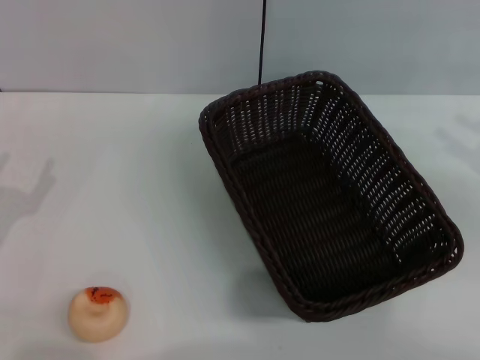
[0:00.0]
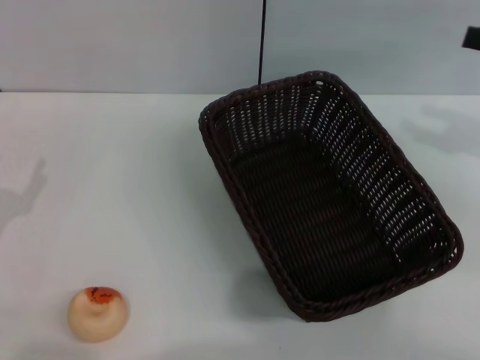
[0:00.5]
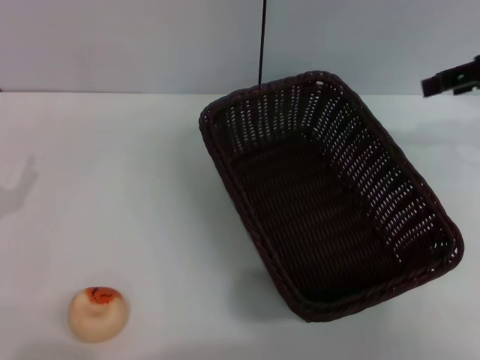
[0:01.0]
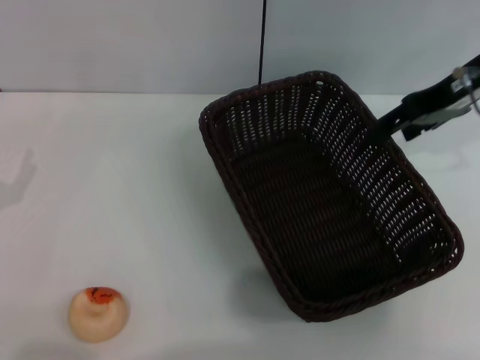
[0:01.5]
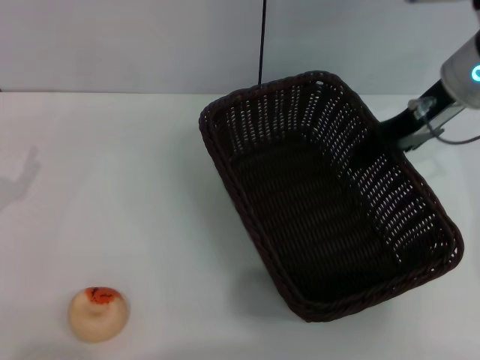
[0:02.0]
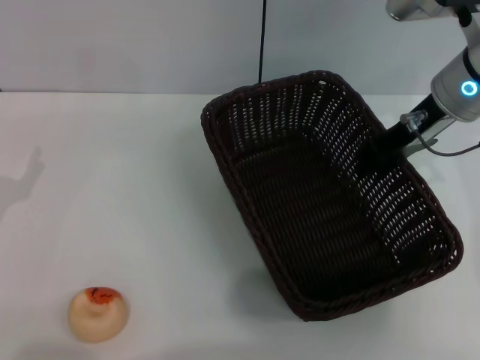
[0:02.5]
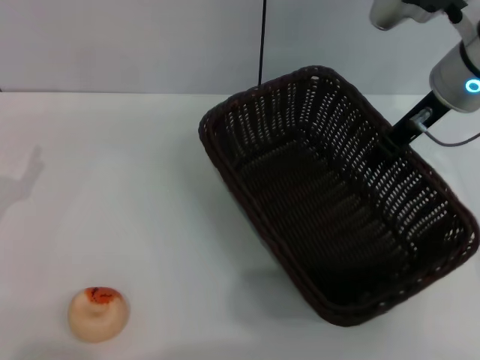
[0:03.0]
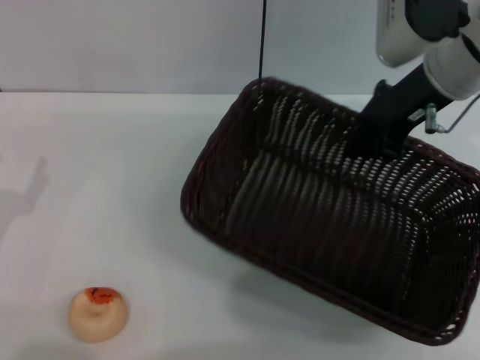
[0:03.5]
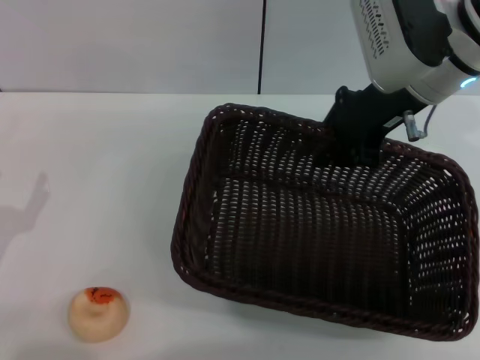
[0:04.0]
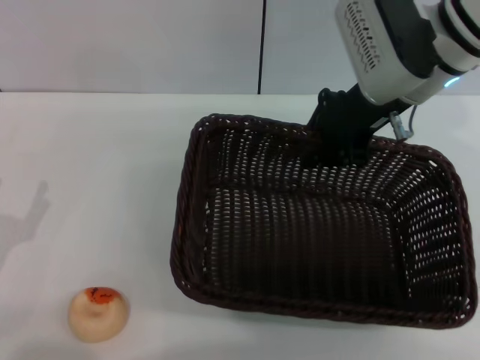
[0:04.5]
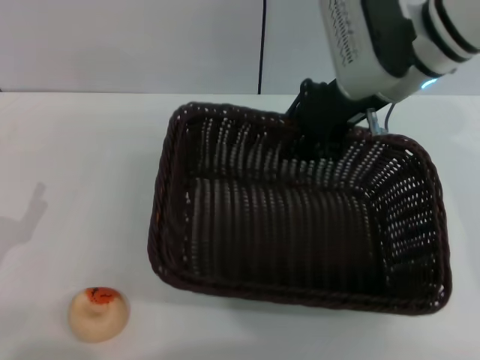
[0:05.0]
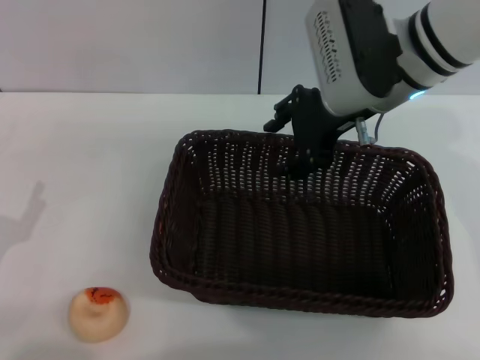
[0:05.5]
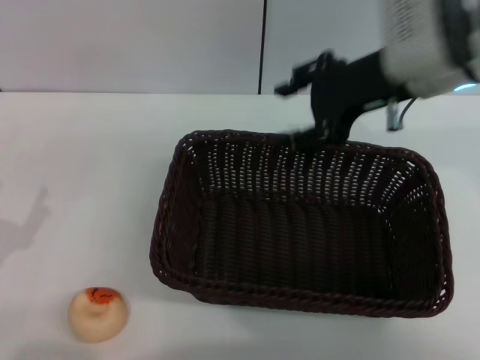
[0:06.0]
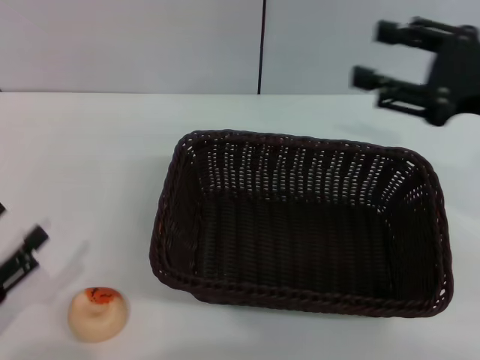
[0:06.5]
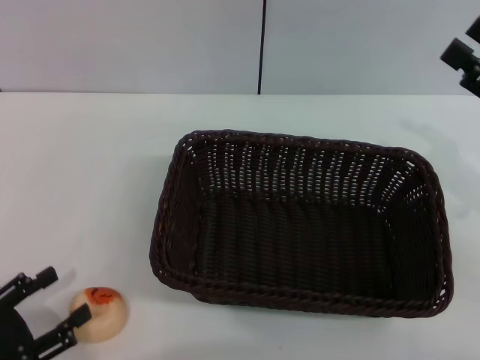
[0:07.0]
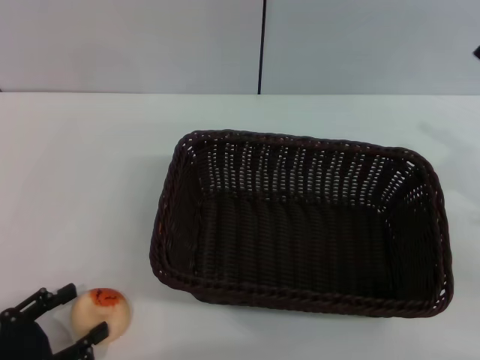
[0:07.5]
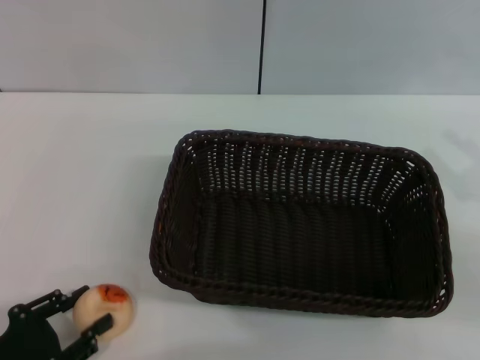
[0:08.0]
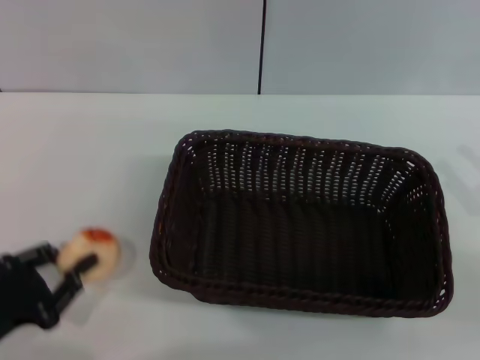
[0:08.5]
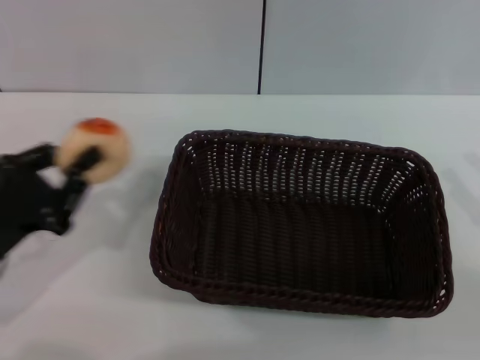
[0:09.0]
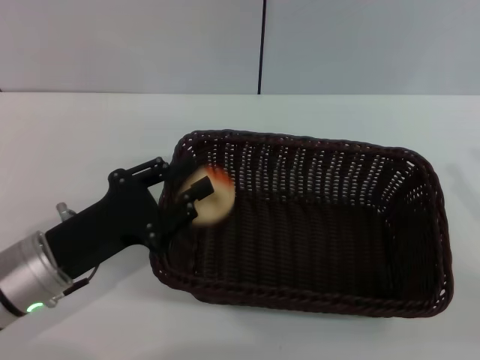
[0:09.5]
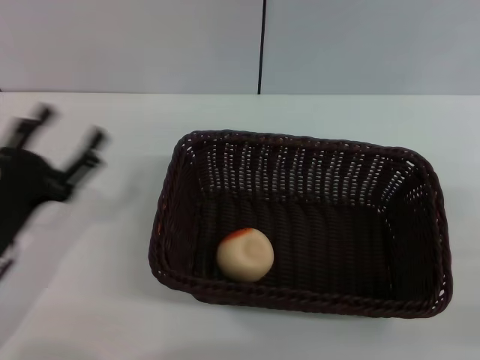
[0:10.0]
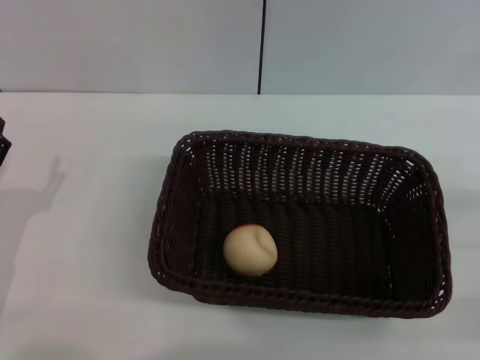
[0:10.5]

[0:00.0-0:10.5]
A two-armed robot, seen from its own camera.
Step, 0:00.0 to 0:05.5: Move the basket to the center of view with the right gripper.
Step, 0:06.0 to 0:08.5: Pick up the egg yolk pastry with the left gripper.
Step, 0:09.0 to 0:09.5: Place the egg yolk pastry into the basket with the left gripper.
0:00.0 to 0:02.0: The right gripper travels to the left and forward by approximately 20 cm.
0:02.0 to 0:04.0: The right gripper closes up.
0:04.0 to 0:06.5: The left gripper ends up roughly 5 cm from where it was. The right gripper is displaced to the right and backward by approximately 15 cm, and opens its fingers.
0:06.5 to 0:08.5: The left gripper closes, while the right gripper heads downward, backward and to the right, covering roughly 15 cm.
0:08.5 to 0:10.5: The left gripper is displaced forward by some 5 cm, reaches roughly 10 cm to the right, then returns, and opens up.
